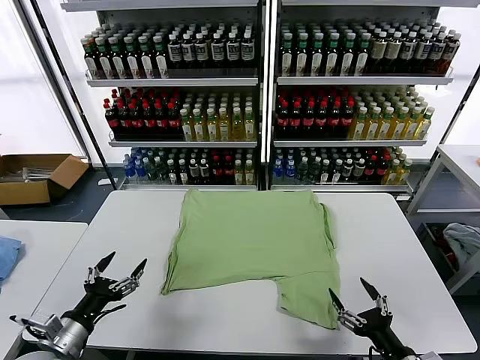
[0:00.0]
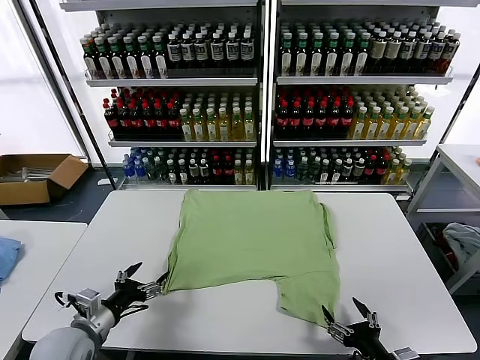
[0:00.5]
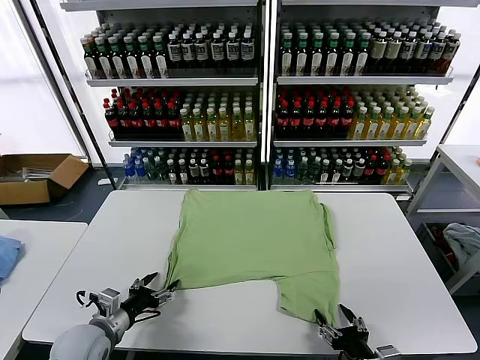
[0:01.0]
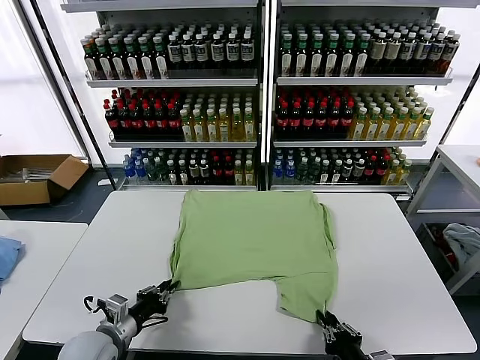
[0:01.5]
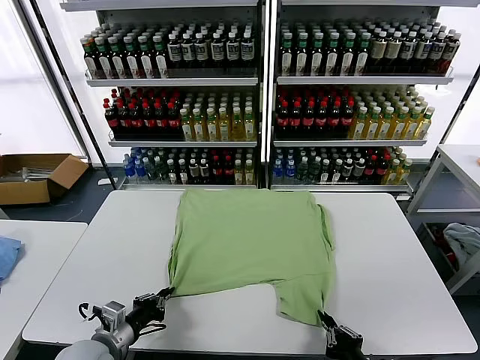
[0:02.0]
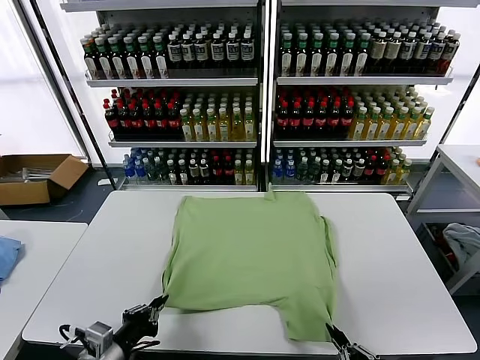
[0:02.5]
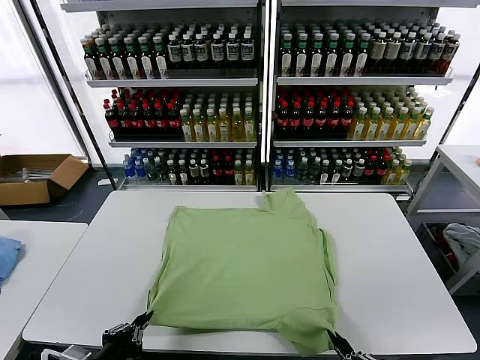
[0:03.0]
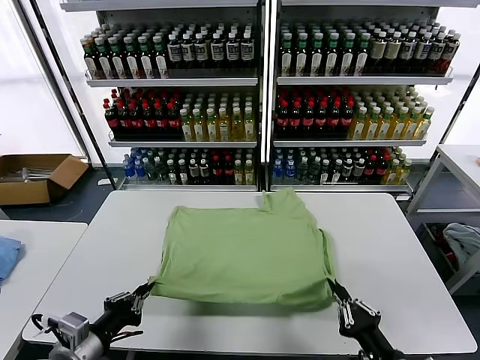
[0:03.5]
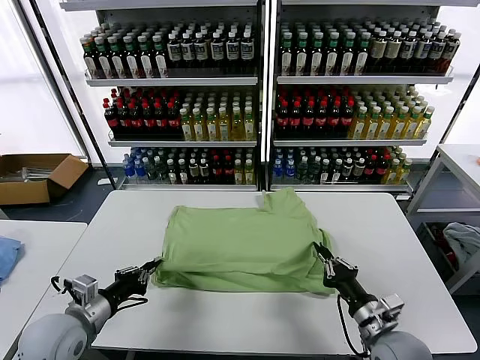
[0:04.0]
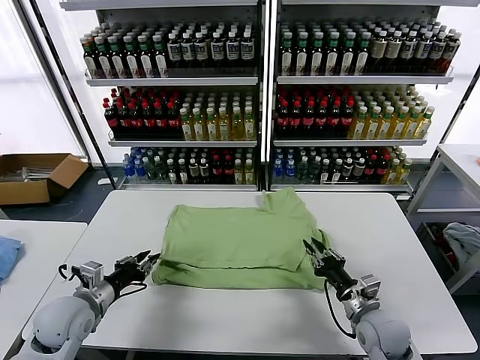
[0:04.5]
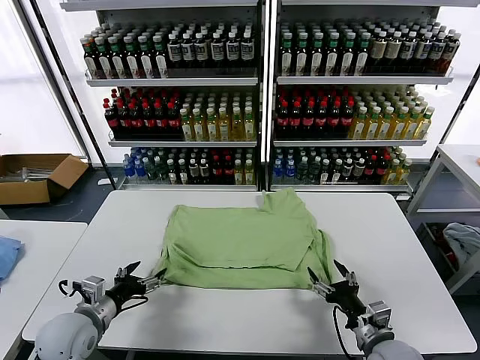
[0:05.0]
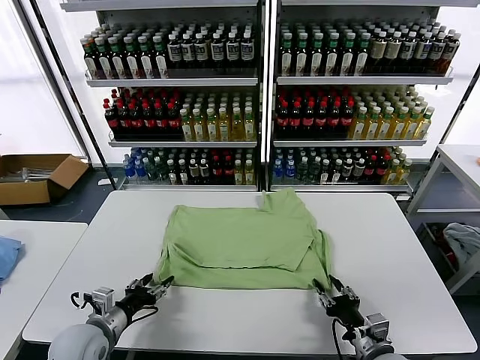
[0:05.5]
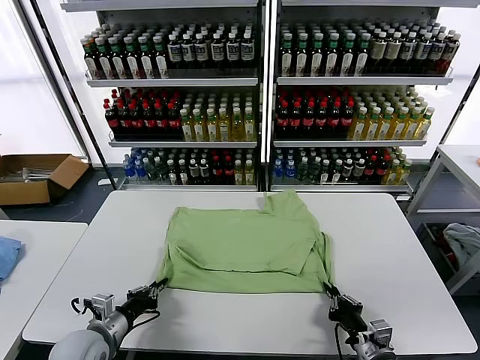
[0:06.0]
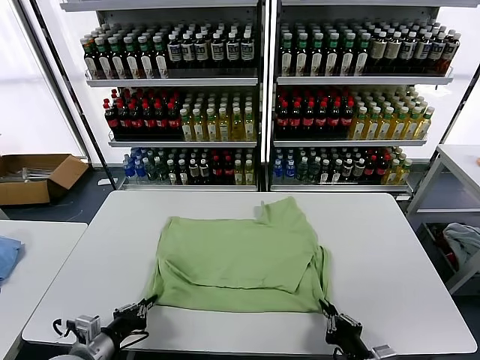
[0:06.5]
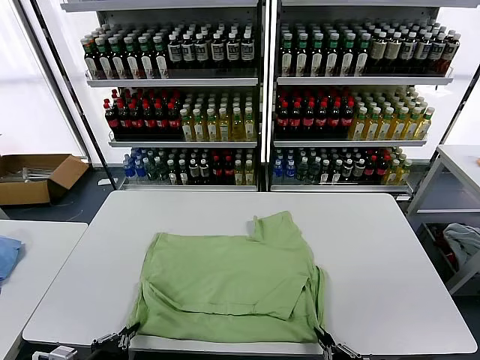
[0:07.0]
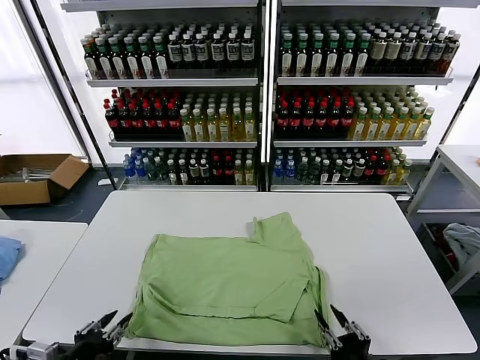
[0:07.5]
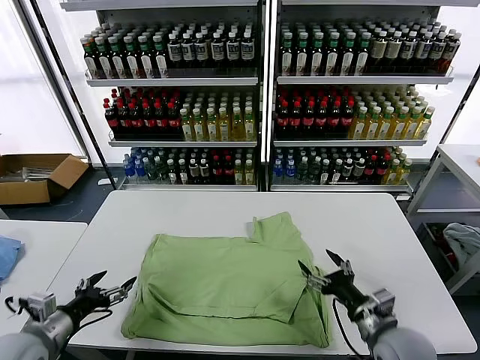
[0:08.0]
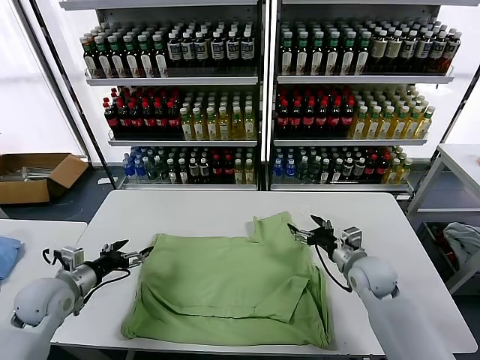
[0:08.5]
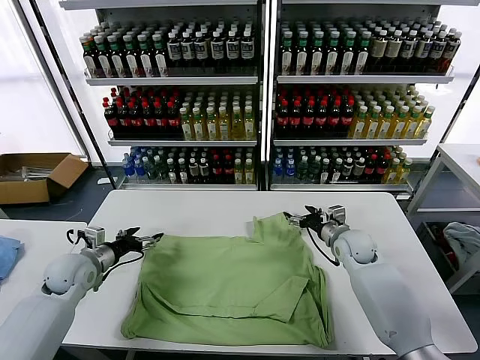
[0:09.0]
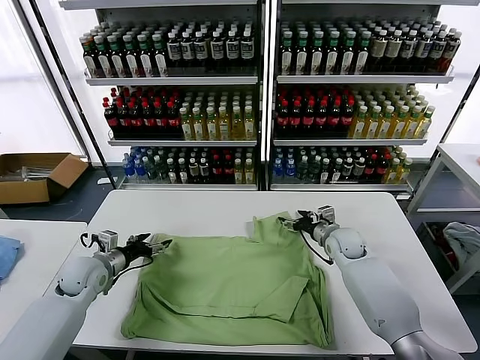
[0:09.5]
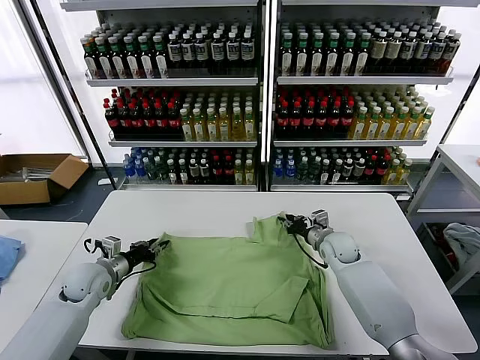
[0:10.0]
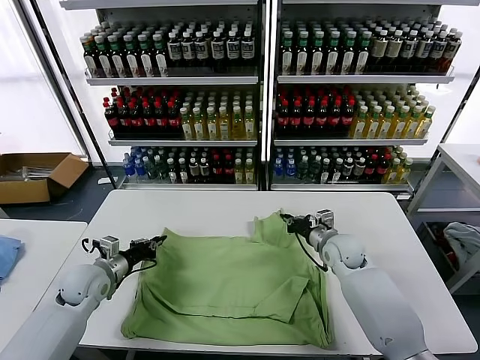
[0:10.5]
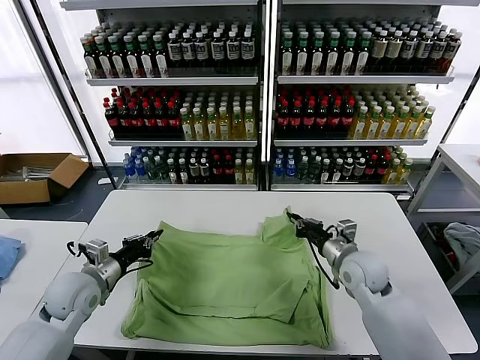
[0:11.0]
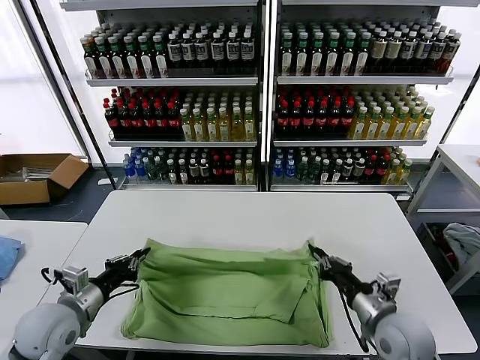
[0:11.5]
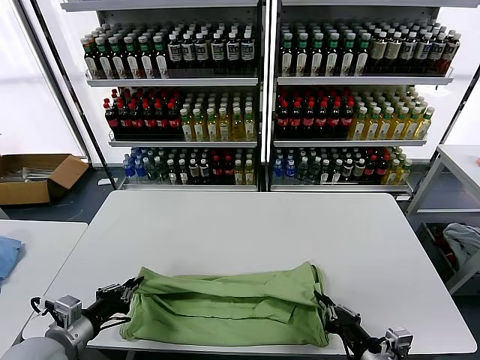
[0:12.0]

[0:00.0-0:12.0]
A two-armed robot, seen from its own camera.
Task of the whole recording: fold and organize the clothes.
Step, 0.0 to 1.5 s: use both grippers simultaneously to clamp the lower edge of the clothing fabric.
Step, 2.0 to 4.5 s: use both grippers to drag the lower edge of the fabric forward and fold it over the upper edge.
Step, 5.0 to 7.0 s: Drag the clothes downward with both gripper.
Step, 7.5 to 10.0 s: use both grippers simultaneously to clamp the upper edge of the clothing fabric.
2.0 to 4.0 s: The left gripper is displaced upward by approximately 5 cm, and travels backward and back again, about 10 cm each way, while the right gripper shifts roughly 15 cm forward.
4.0 to 6.0 s: The right gripper shifts roughly 5 cm backward, and opens, then closes again. Meanwhile the left gripper shifts roughly 5 cm downward, and opens, then closes once more.
6.0 to 8.0 s: The right gripper is displaced forward and upward by some 10 cm, and opens up, while the left gripper goes about 10 cm to the left and upward, goes backward and returns, approximately 10 cm each way, and opens up.
8.0 to 10.0 s: The grippers both shift forward by some 20 cm. The right gripper closes. Meanwhile the left gripper closes up.
10.0 to 12.0 s: The right gripper is displaced backward by about 35 cm. The left gripper moves backward, about 20 cm.

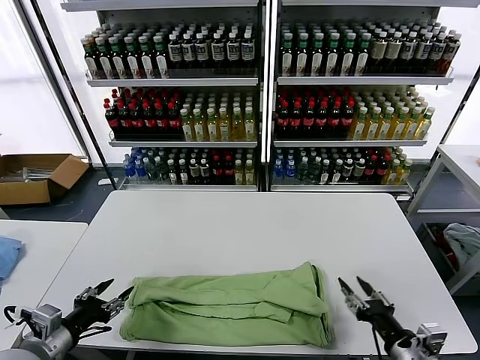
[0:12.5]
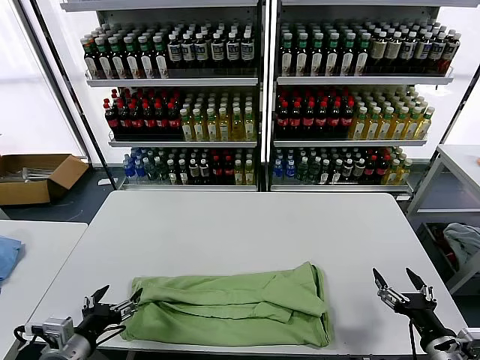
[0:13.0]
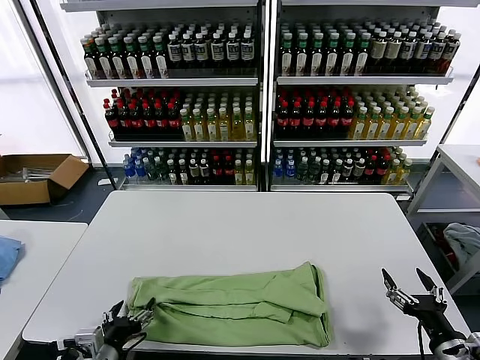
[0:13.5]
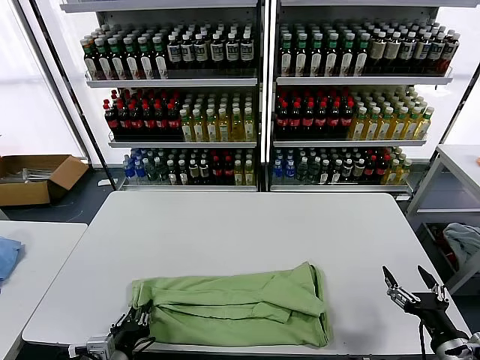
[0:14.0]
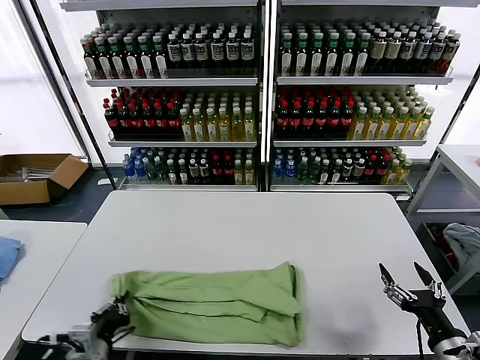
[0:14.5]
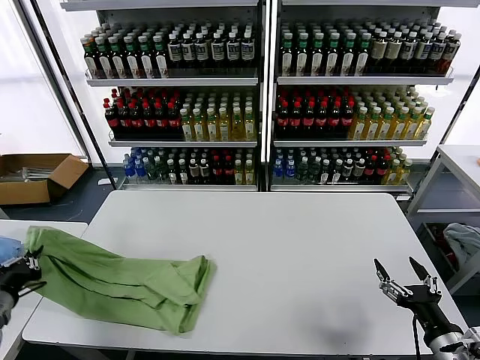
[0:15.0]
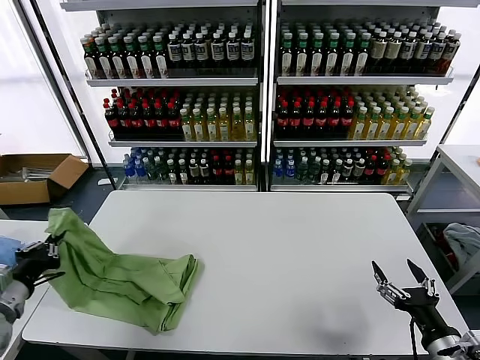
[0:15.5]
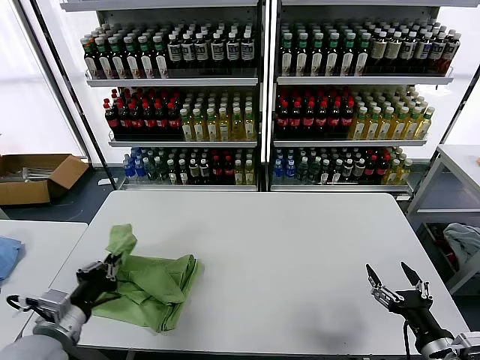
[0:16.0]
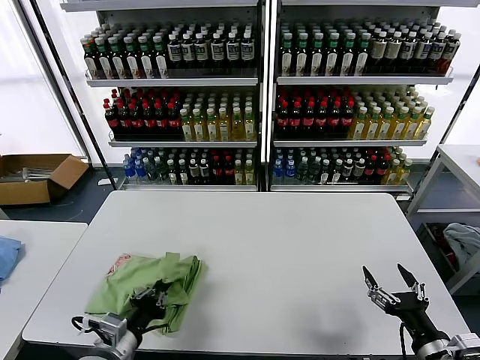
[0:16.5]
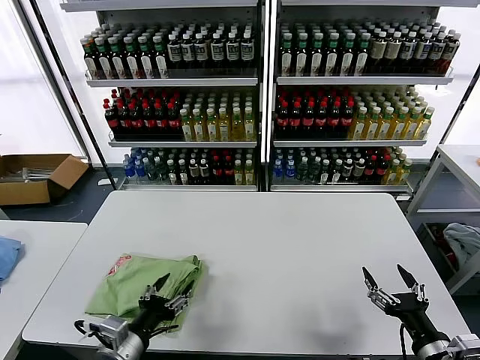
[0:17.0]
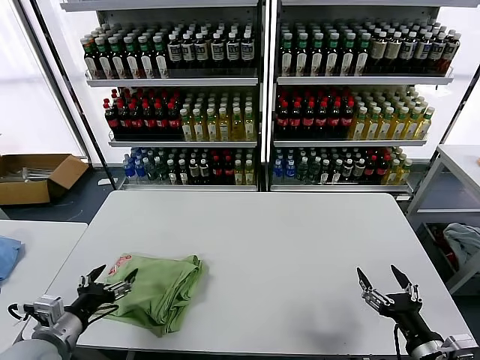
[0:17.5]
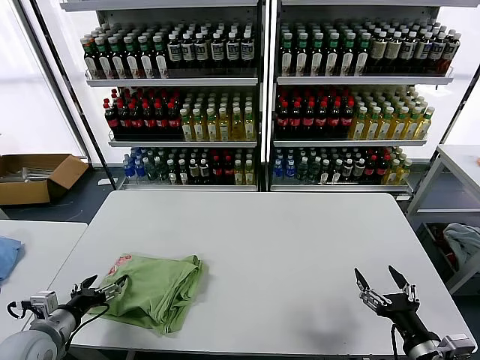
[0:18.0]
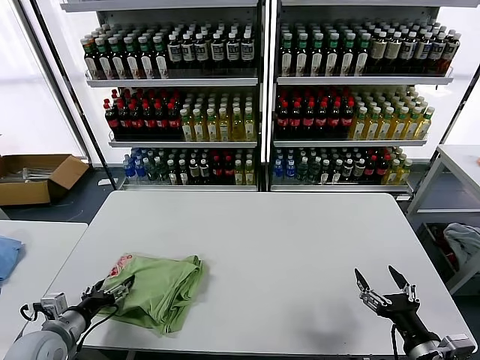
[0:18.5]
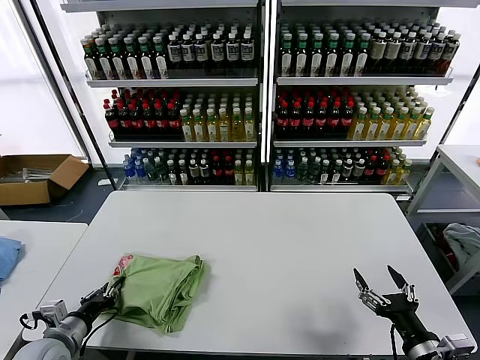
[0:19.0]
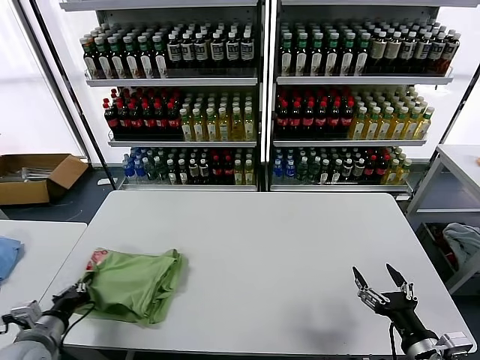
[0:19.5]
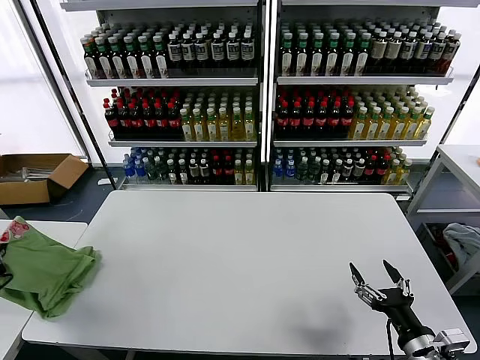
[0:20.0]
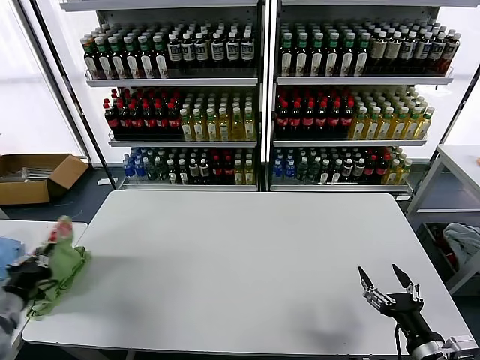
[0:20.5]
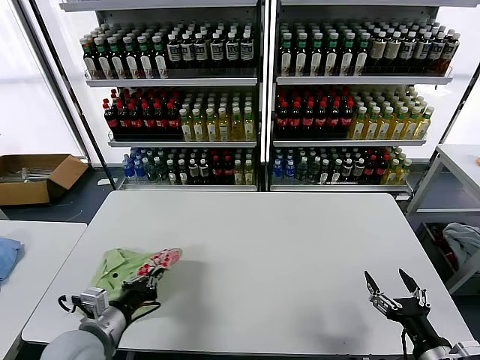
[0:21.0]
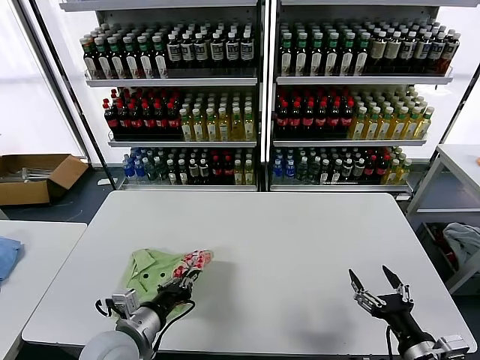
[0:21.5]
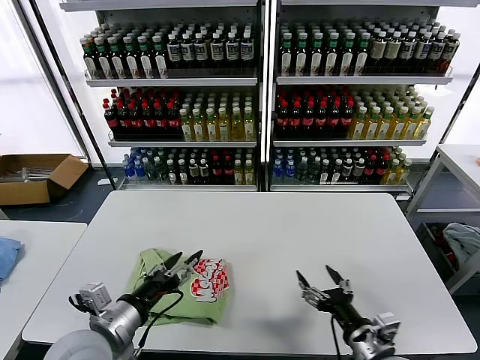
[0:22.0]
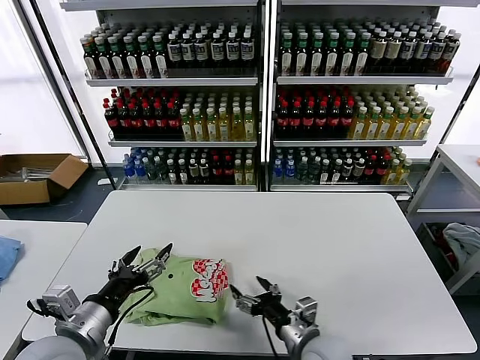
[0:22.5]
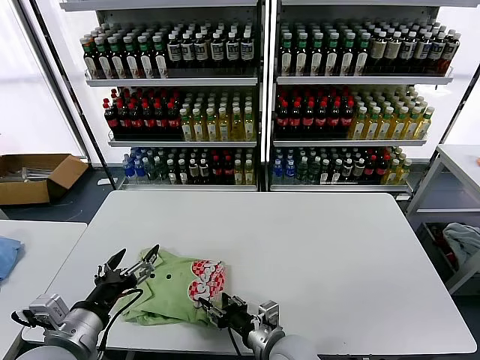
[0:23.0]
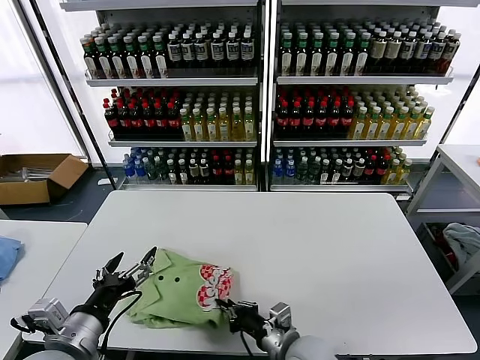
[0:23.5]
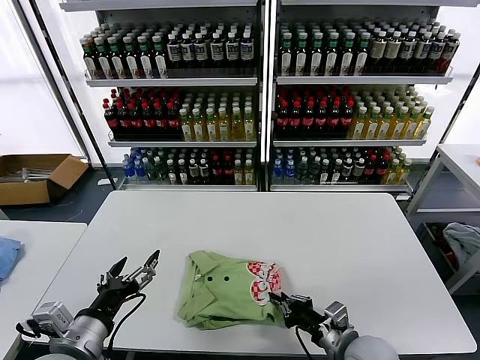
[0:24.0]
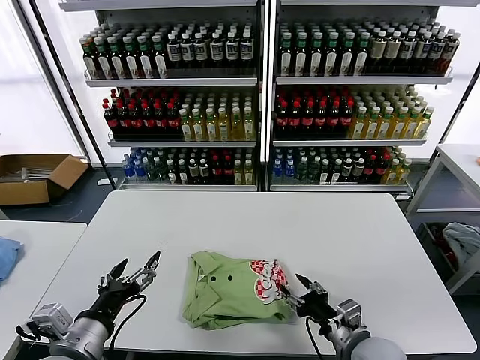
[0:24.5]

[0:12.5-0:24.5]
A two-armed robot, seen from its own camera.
Task of the whole recording: fold and organize the clothes.
Step, 12.5 to 14.0 s: use the left gripper to clamp the left edge of the fabric.
Step, 14.5 to 16.5 s: use the left gripper to drag the left edge of the fabric to the left and folds it over the right edge.
Step, 17.5 to 21.5 s: Flip the folded clothes over with left gripper.
12.5 to 14.5 s: The left gripper goes approximately 10 cm downward and to the right, and closes up.
14.5 to 16.5 s: The left gripper travels to the left and back again, some 20 cm each way.
16.5 to 18.5 s: The left gripper goes approximately 15 cm to the left, and opens up.
18.5 to 20.5 s: The left gripper is displaced upward and to the left by some 10 cm, and closes.
20.5 to 22.5 s: The right gripper shifts about 20 cm to the left and forward; the left gripper travels to the right by approximately 20 cm, and opens its fingers.
22.5 to 24.5 s: The right gripper travels to the right by approximately 10 cm, and closes its fingers.

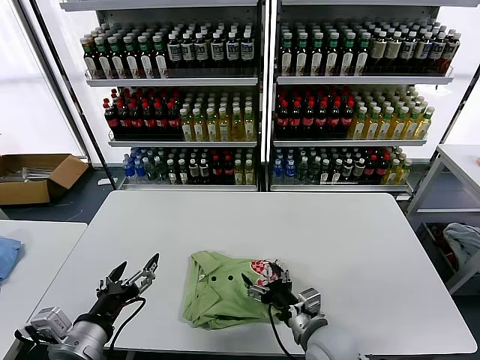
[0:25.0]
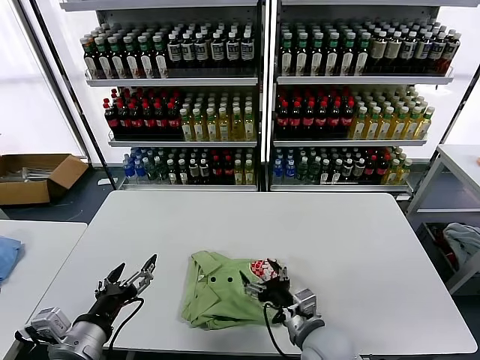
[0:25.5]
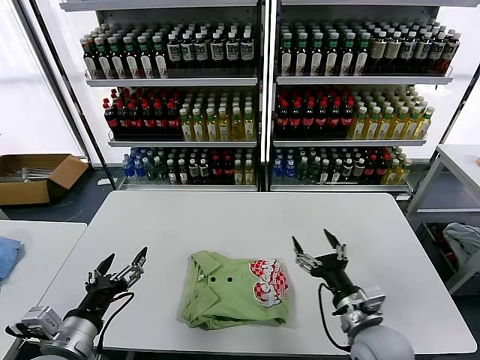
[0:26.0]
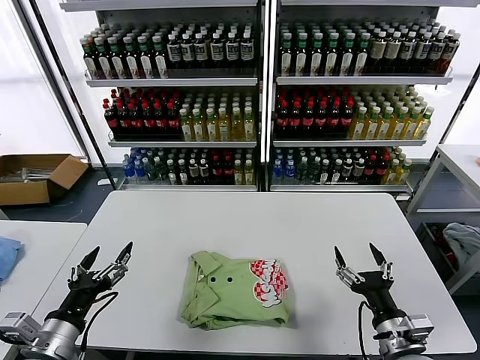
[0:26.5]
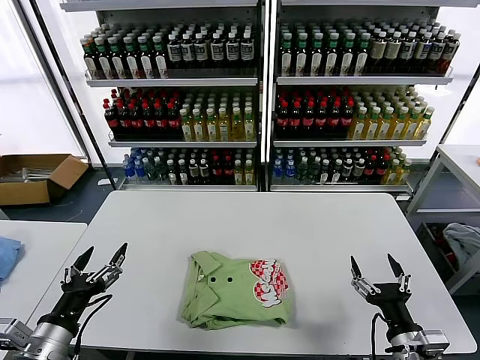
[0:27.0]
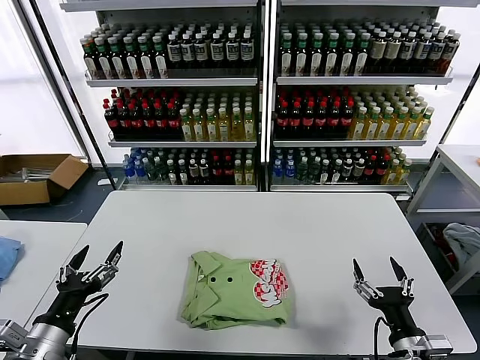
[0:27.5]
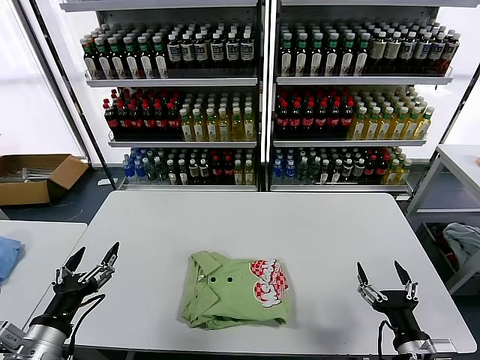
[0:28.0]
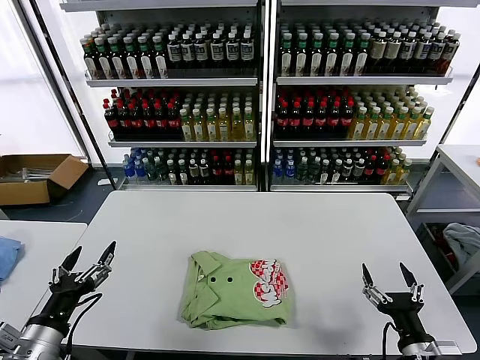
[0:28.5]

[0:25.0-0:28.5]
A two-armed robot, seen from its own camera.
Task of the whole recording: fold and organize the clothes.
25.0 to 27.0 s: The left gripper heads to the left, covering roughly 5 cm. Meanwhile the right gripper moves to the right and backward, approximately 15 cm.
27.0 to 28.5 s: There are only small adjustments of the grippers.
